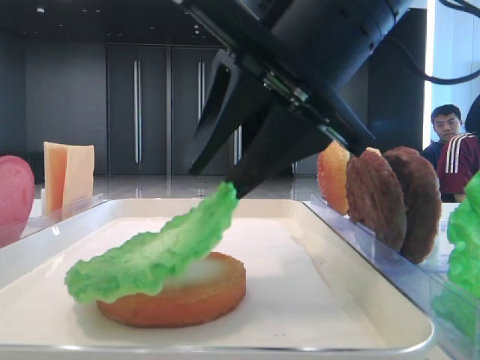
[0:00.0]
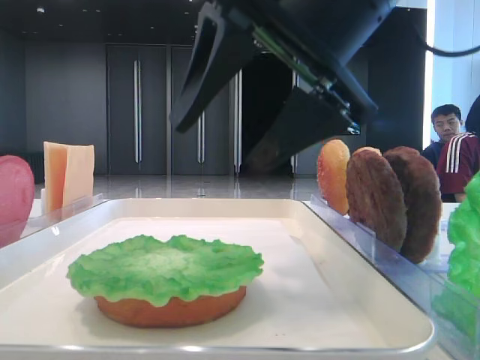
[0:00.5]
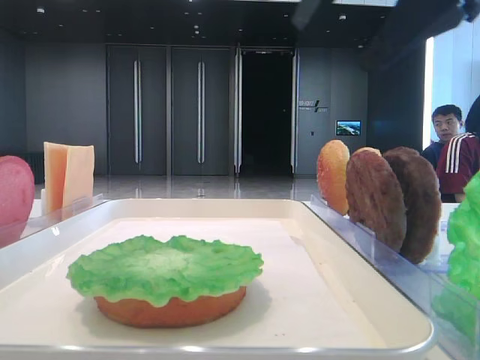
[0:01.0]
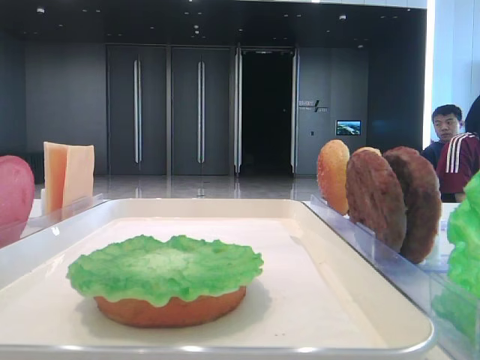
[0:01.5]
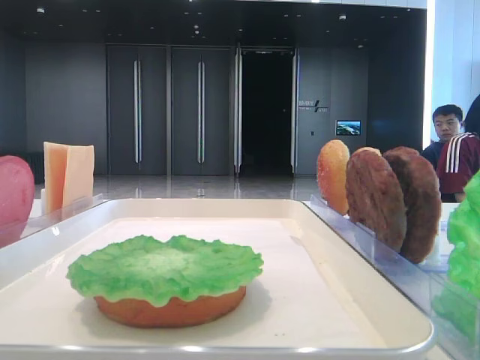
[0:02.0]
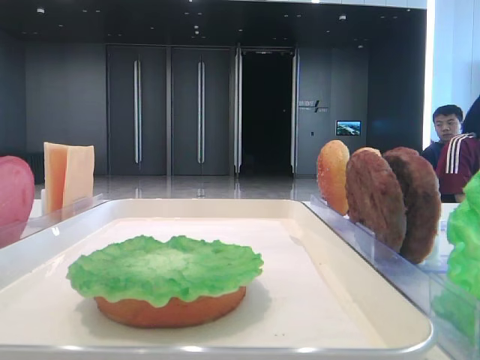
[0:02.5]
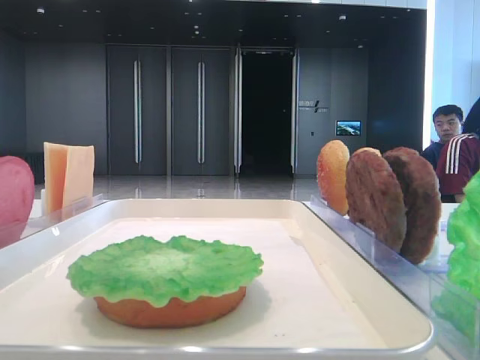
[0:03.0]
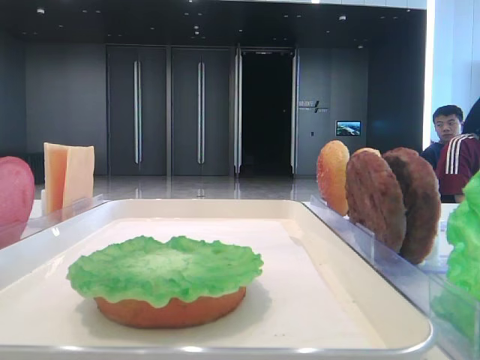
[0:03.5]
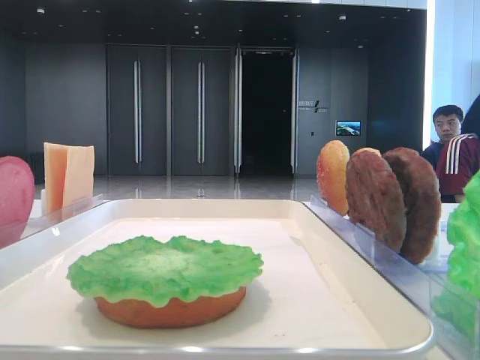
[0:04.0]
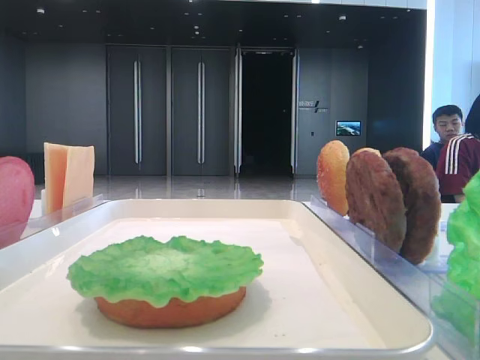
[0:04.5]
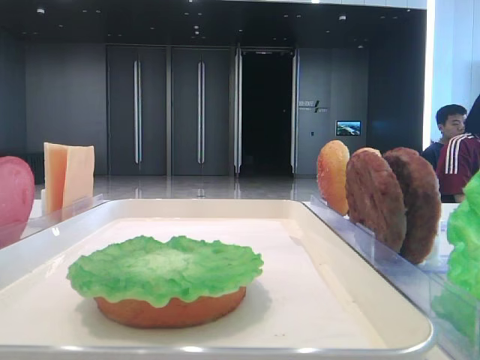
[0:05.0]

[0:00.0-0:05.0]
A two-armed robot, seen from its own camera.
0:00.0 to 0:02.5: The right gripper travels to the right and upward by about 25 cm, and opens.

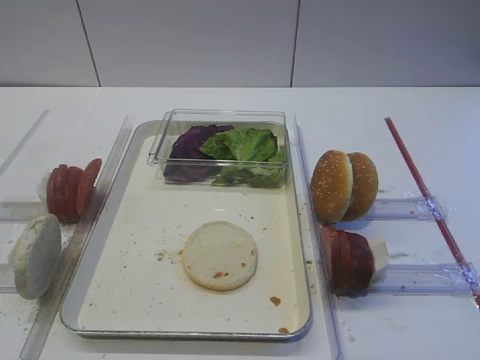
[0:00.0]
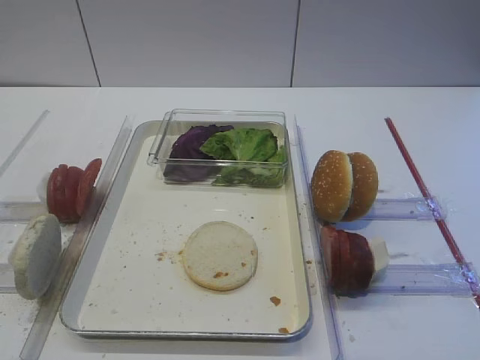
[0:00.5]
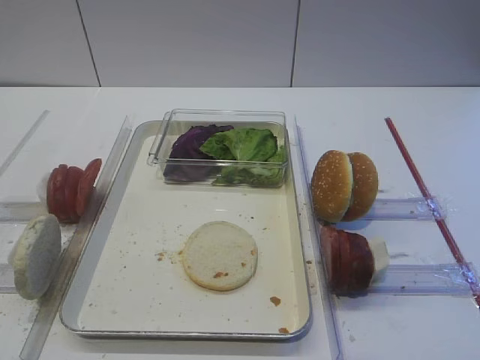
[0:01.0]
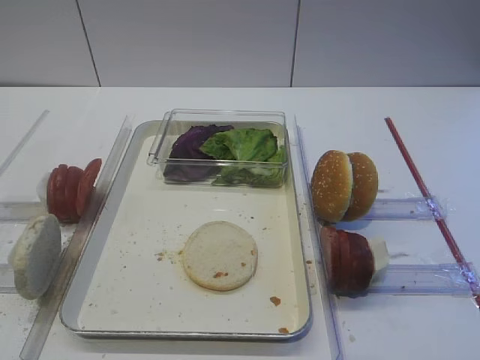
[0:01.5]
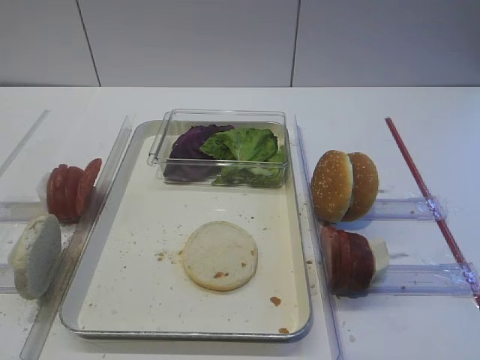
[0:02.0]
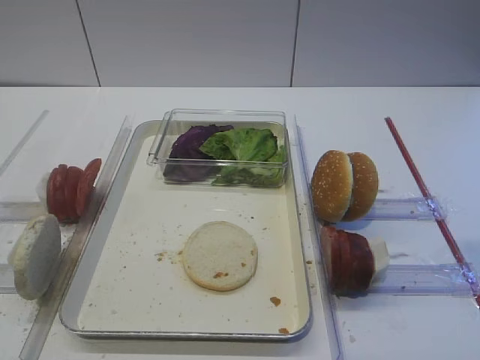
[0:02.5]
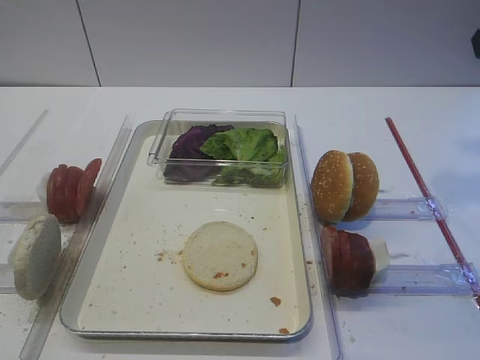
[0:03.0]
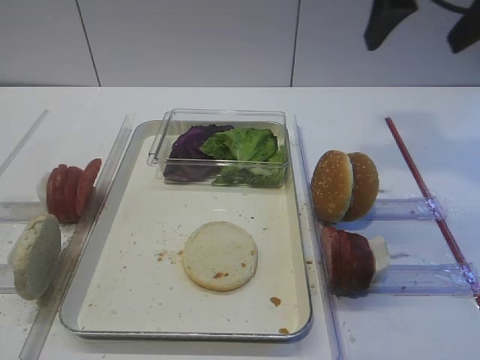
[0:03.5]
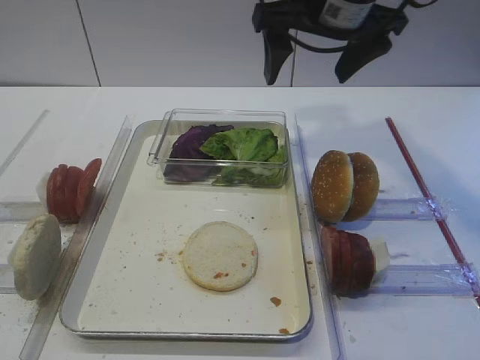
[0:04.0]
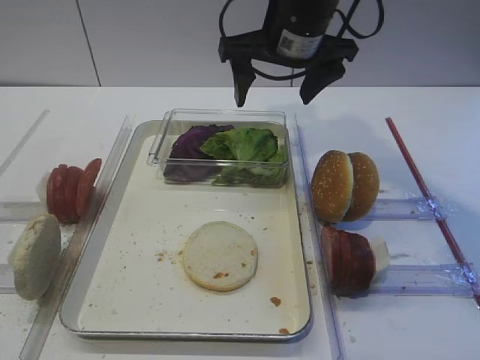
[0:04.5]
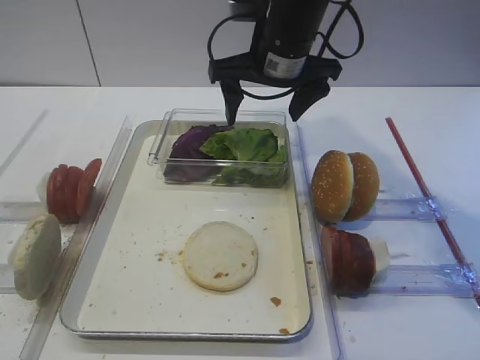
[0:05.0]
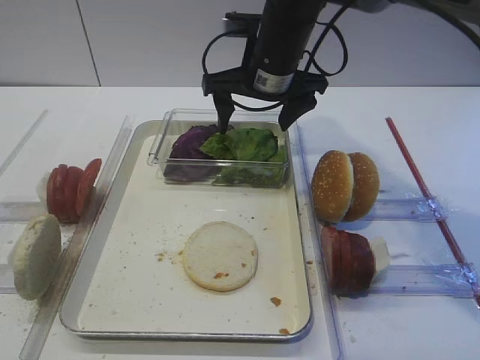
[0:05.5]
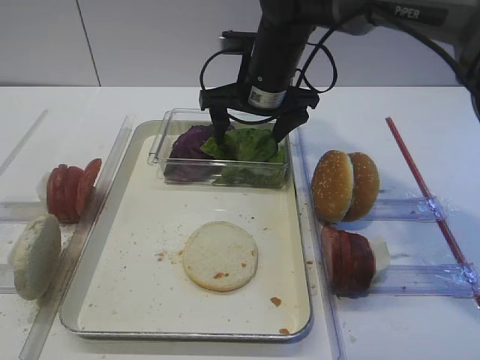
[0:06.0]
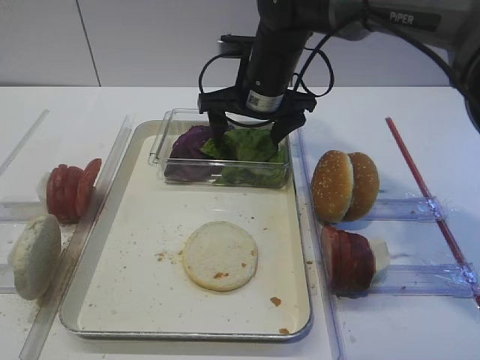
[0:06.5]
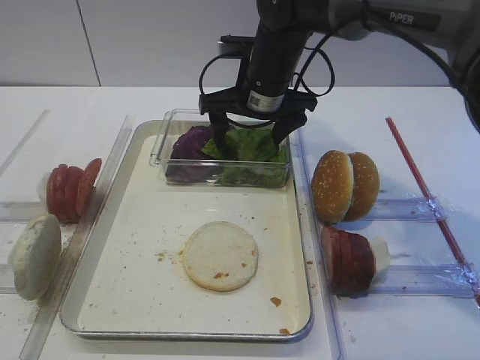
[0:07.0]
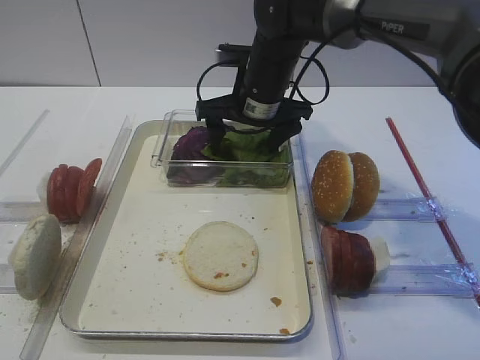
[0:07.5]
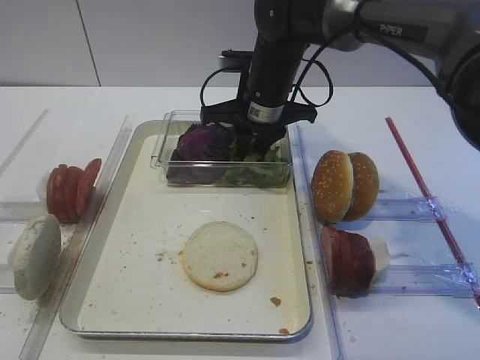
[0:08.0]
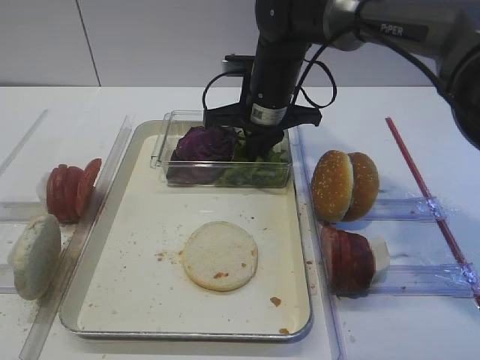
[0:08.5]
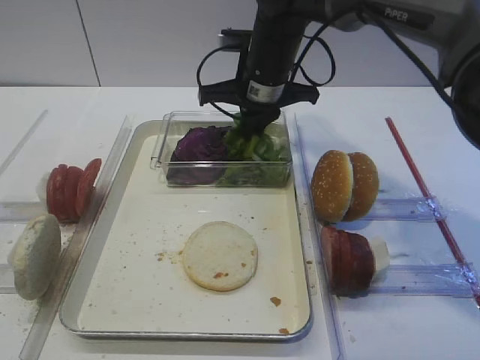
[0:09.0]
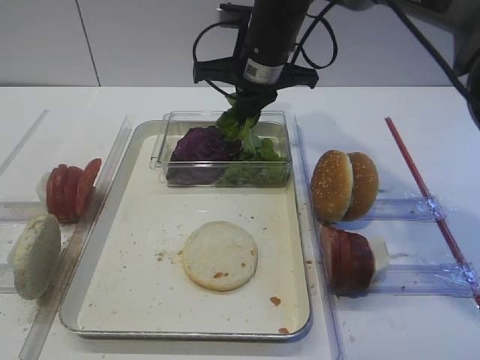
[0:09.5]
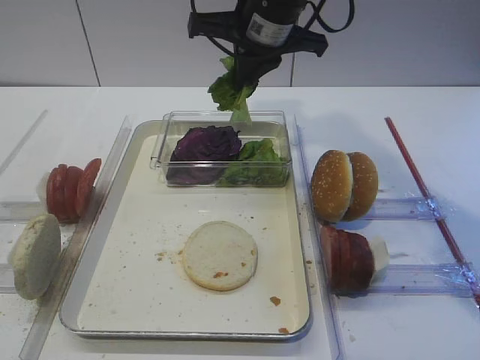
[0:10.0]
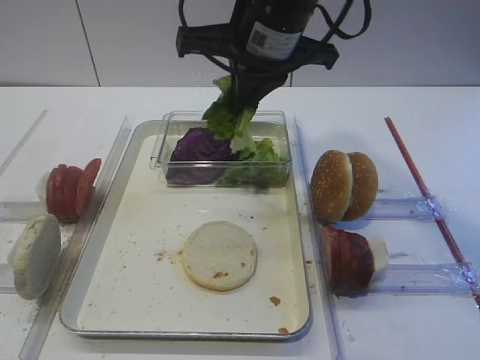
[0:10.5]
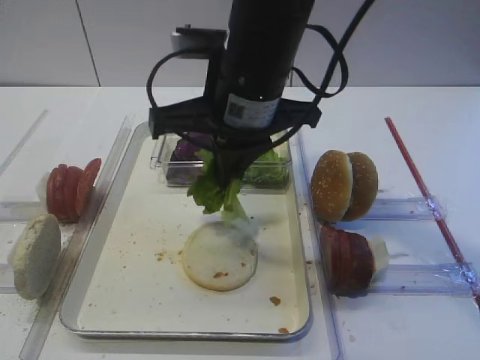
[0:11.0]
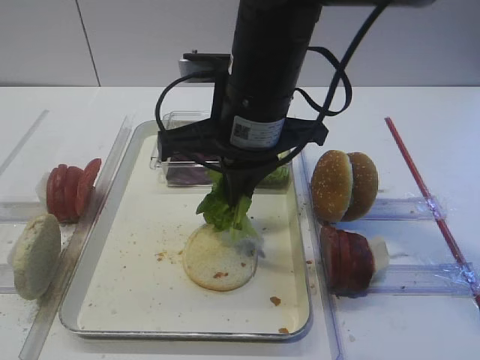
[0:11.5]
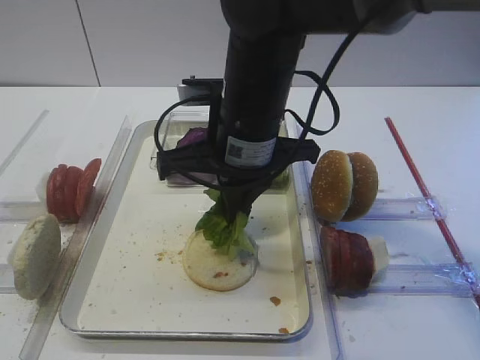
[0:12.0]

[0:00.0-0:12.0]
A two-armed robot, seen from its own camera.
Step, 0:00.0 to 0:09.0: Pick up the lettuce leaf with the right gripper.
0:02.0 to 0:04.0: The right gripper travels forward and to the left by roughly 35 cm.
0:04.0 to 0:06.0: The right gripper heads downward, to the left and forward, covering roughly 15 cm.
0:06.0 to 0:08.0: The right gripper closes.
0:08.0 to 0:10.0: The right gripper travels upward by about 10 cm, and closes its fingers.
0:10.0 to 0:12.0: The right gripper shifts approximately 15 cm backward and downward.

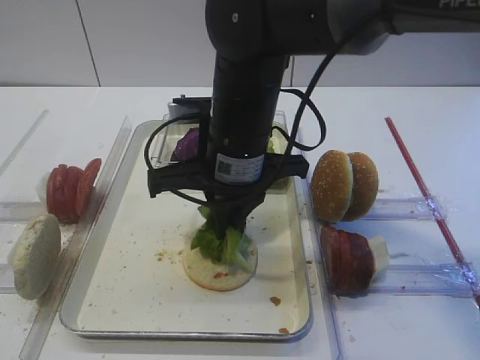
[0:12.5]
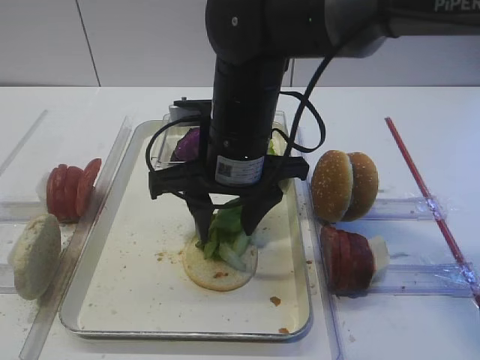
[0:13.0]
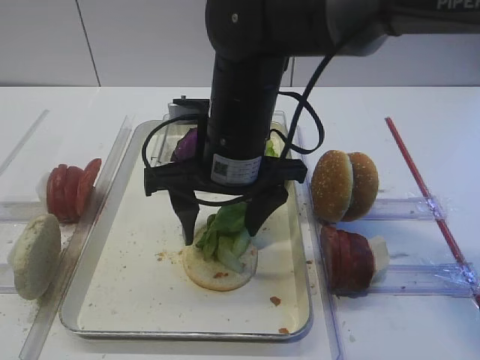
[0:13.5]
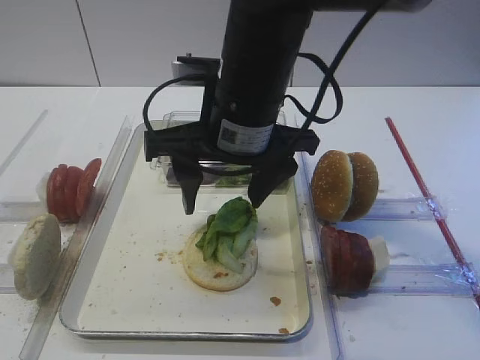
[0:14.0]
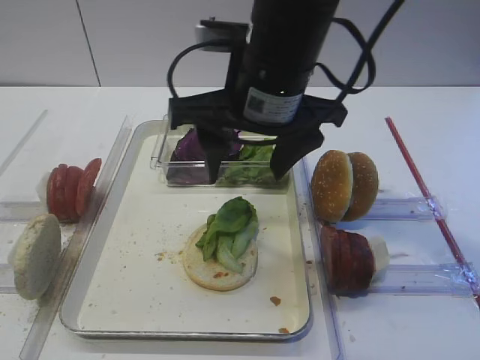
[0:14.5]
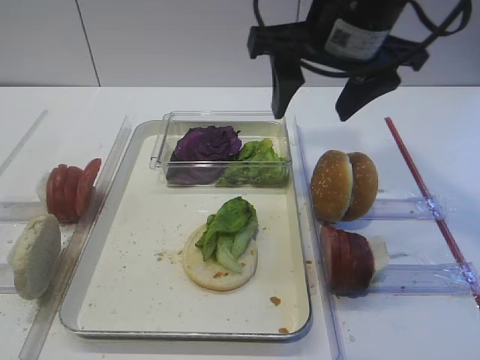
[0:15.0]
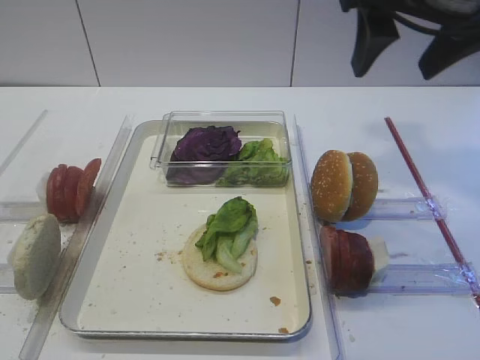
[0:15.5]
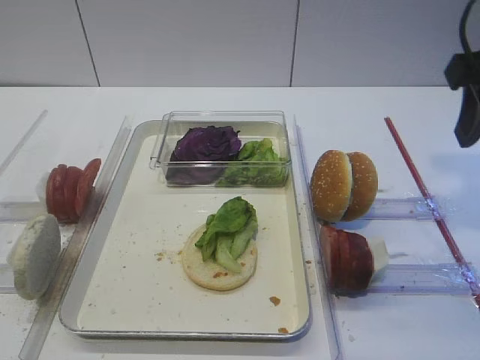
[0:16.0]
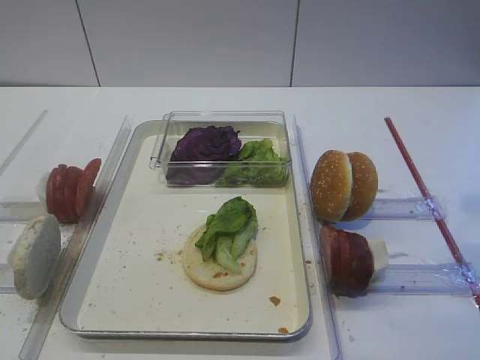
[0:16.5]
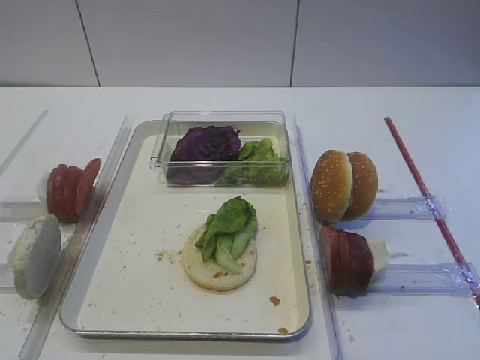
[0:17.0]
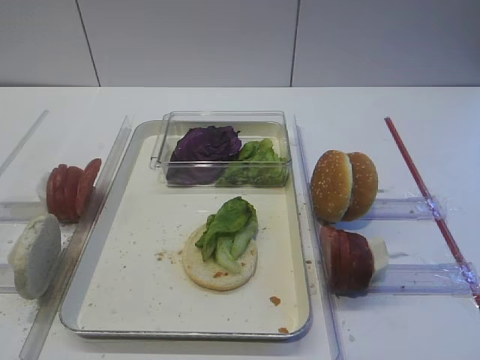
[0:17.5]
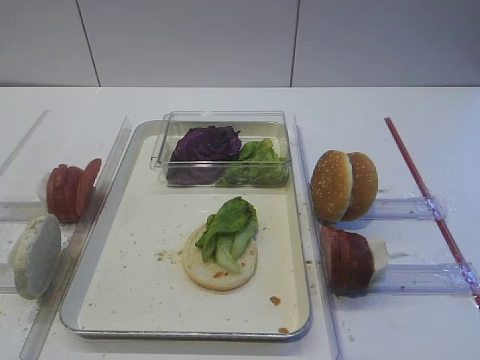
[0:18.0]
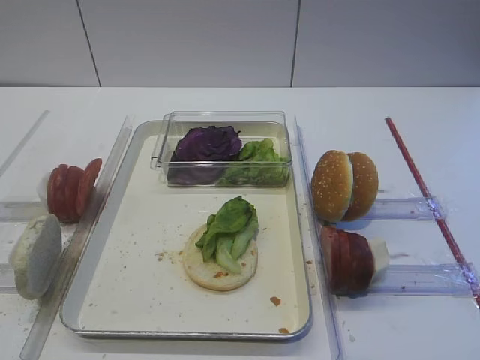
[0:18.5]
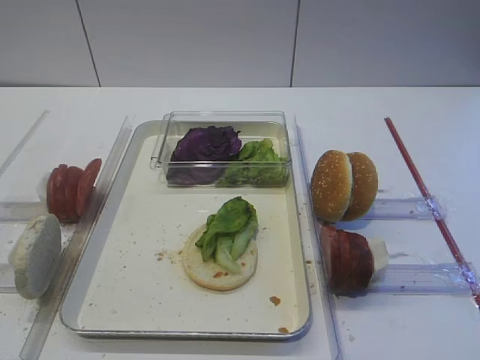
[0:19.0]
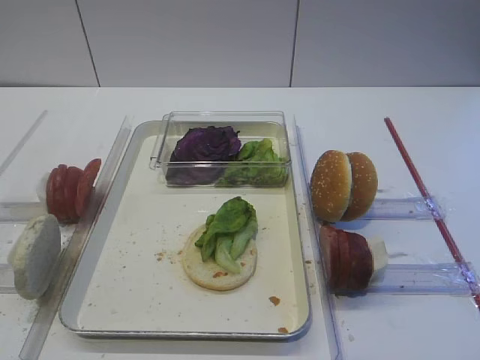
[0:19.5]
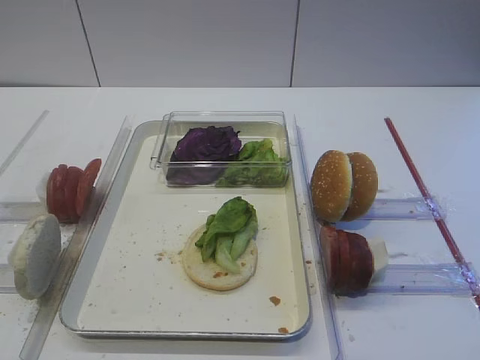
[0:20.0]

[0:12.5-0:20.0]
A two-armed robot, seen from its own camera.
0:12.5 to 0:14.5: The right gripper travels upward by some 5 cm, and opens.
0:14.5 to 0:16.5: The right gripper is displaced to the right and backward by about 25 cm.

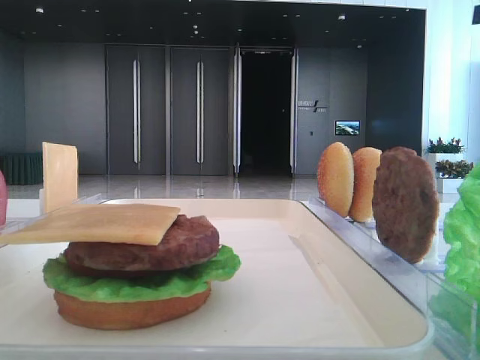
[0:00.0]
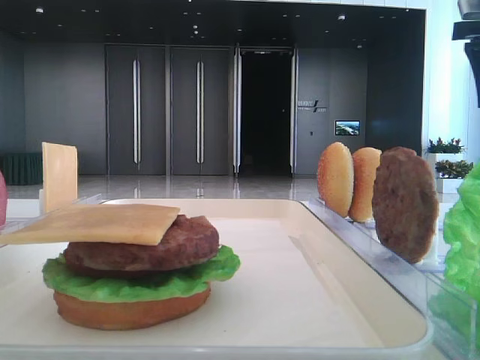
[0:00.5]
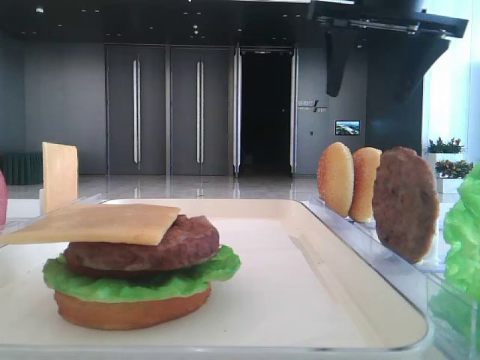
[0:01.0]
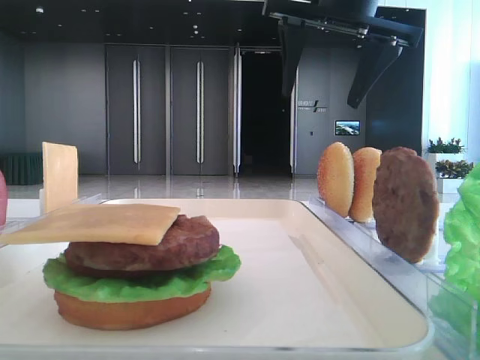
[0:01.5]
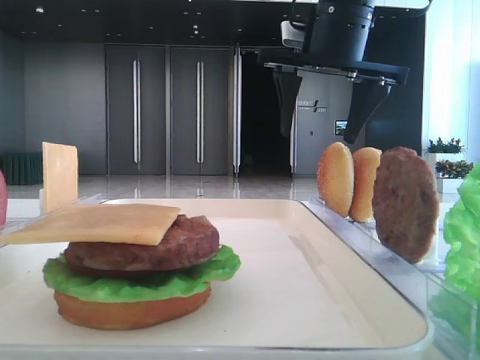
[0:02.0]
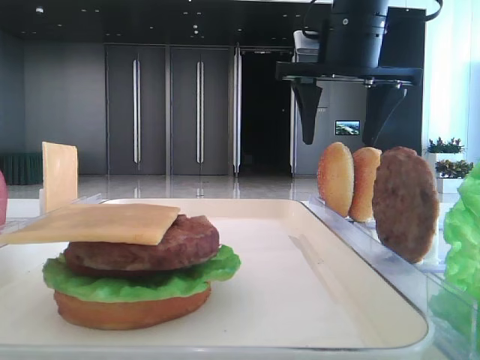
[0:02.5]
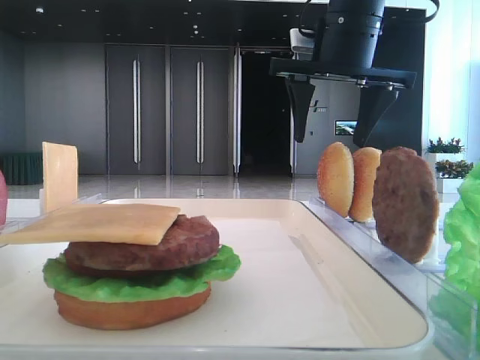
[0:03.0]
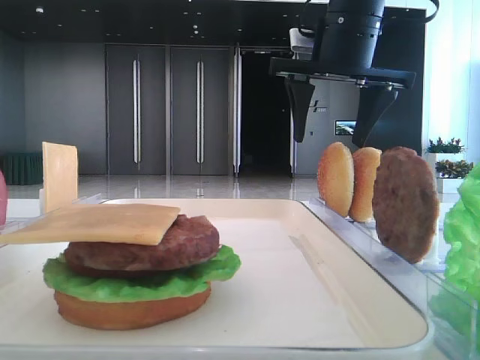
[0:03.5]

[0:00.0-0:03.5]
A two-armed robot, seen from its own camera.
0:00.0 to 0:02.0: The right gripper goes roughly 20 cm to the left.
0:02.0 to 0:03.5: There are only small adjustments of the grippers.
